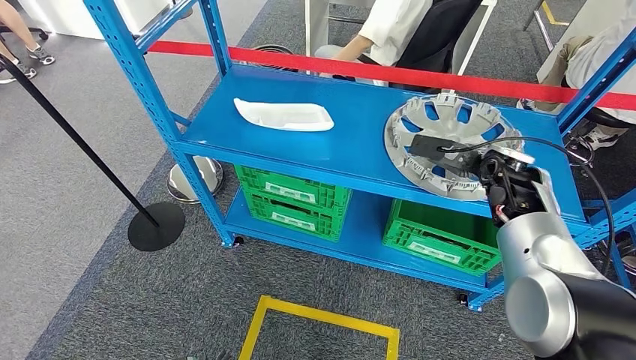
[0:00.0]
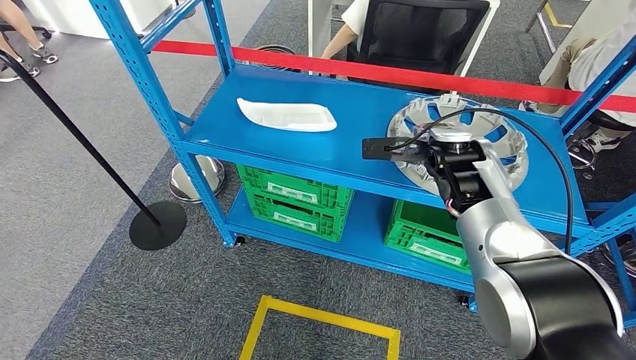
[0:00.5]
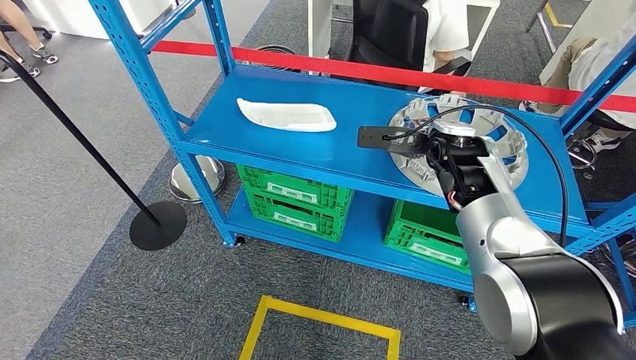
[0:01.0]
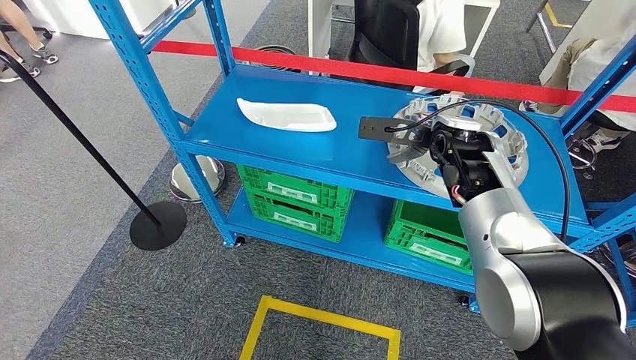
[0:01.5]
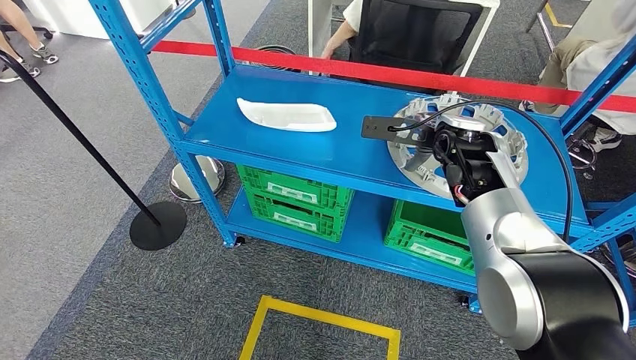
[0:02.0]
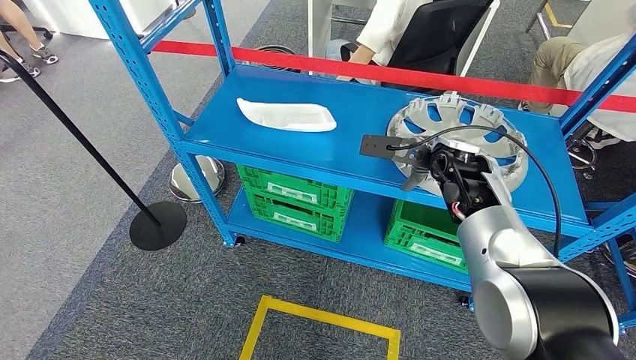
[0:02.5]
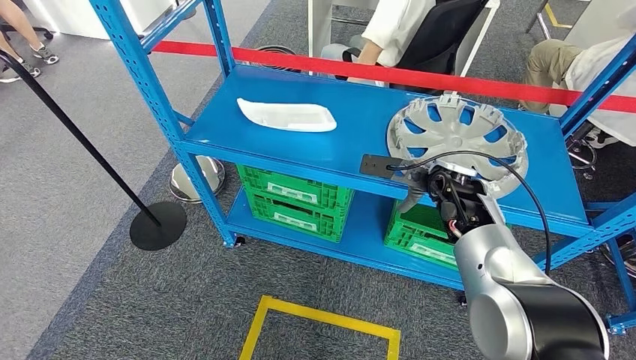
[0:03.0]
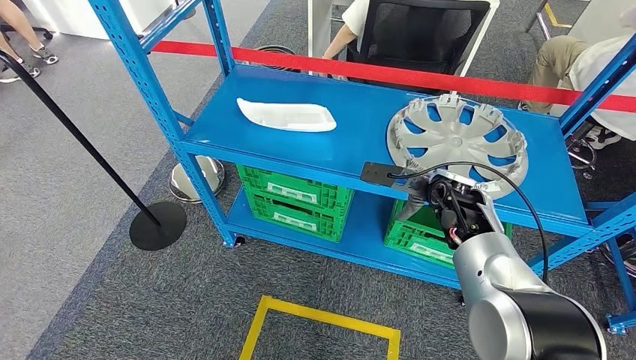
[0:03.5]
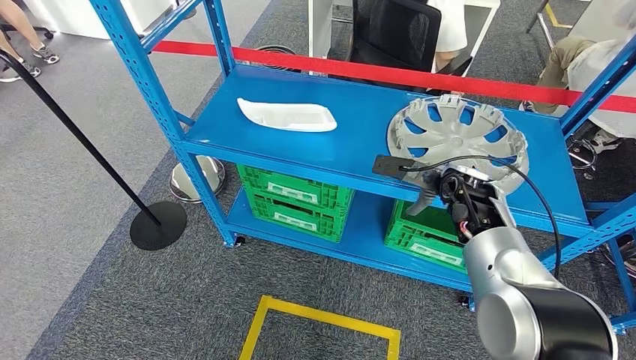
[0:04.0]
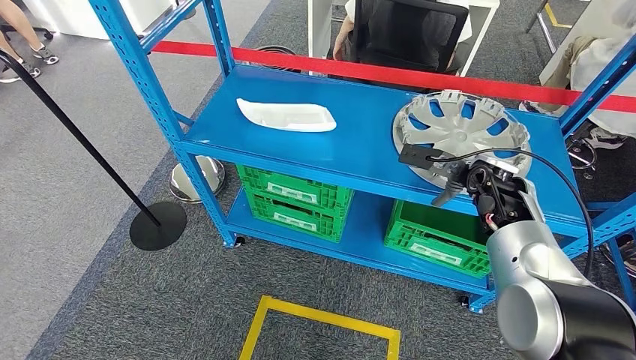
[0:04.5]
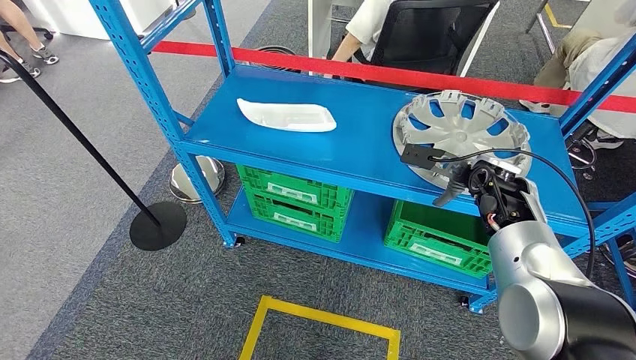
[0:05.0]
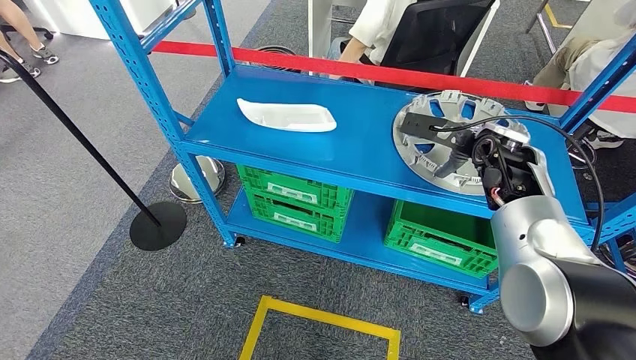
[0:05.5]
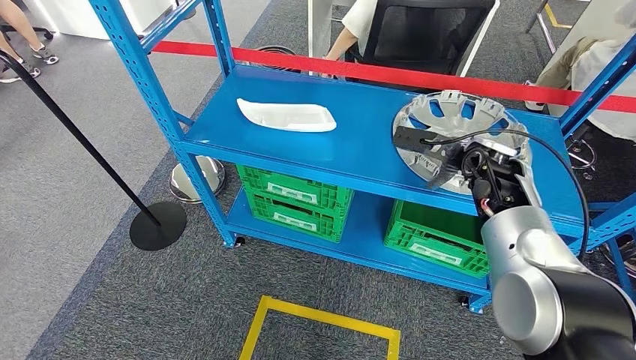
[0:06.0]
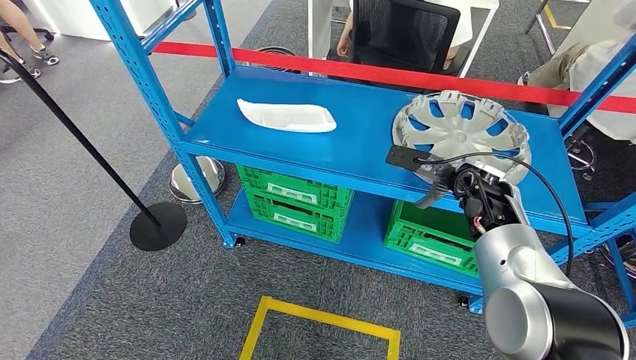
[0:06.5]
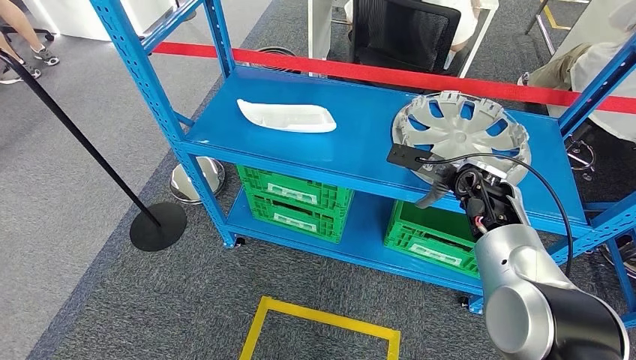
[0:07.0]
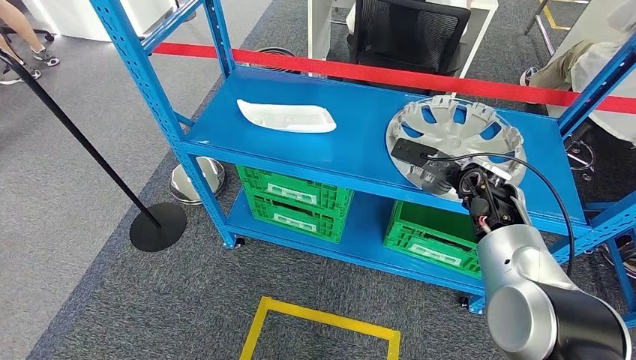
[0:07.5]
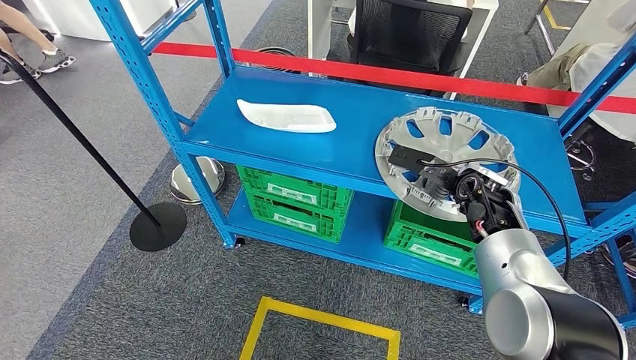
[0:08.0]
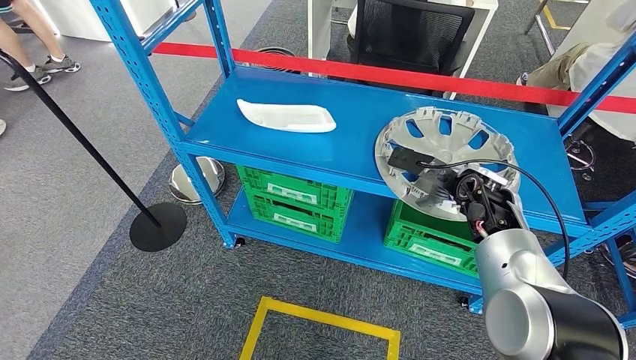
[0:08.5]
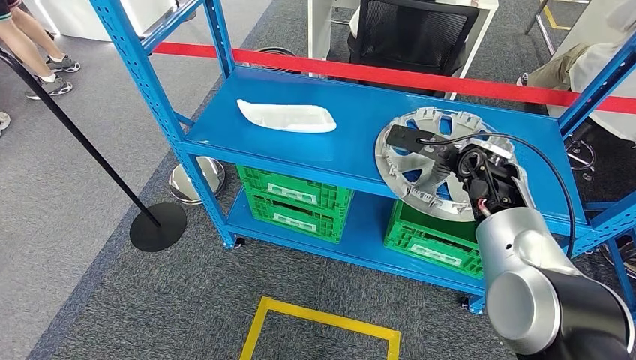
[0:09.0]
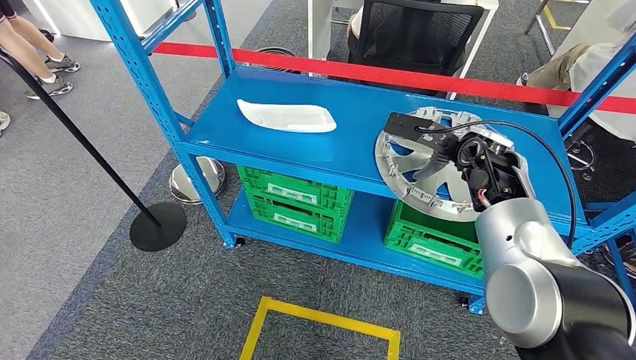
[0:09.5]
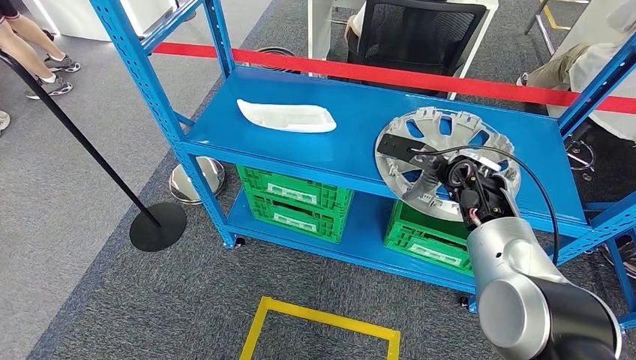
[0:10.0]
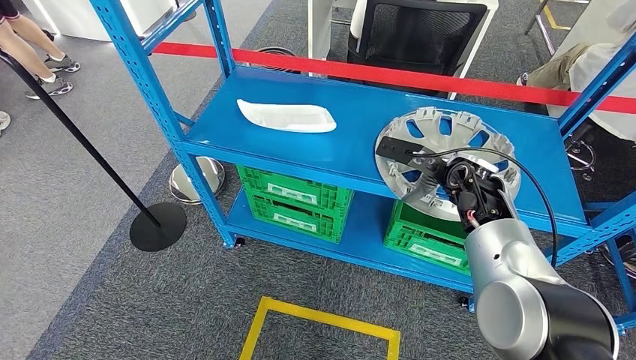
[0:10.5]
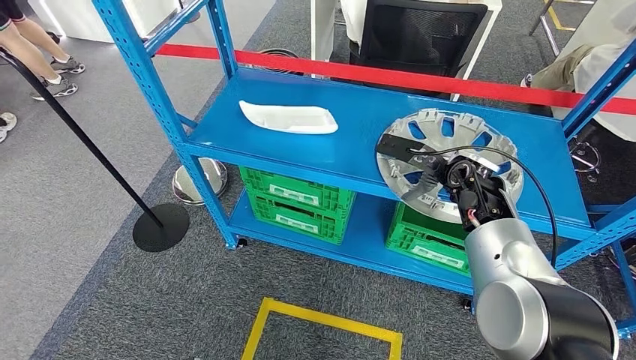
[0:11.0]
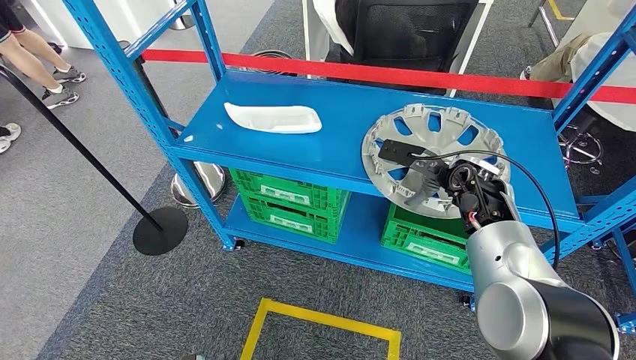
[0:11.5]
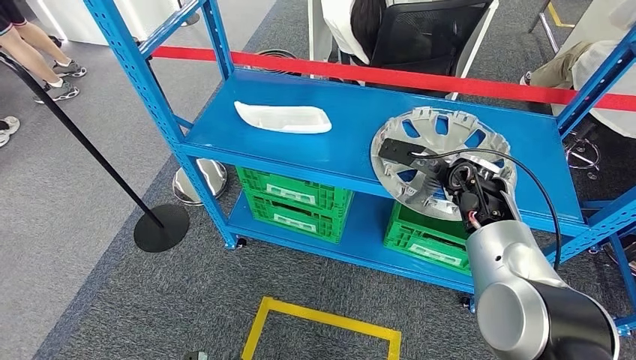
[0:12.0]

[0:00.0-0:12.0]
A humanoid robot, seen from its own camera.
0:02.0 to 0:04.0: The right hand is displaced downward by some 10 cm.
0:04.0 to 0:06.0: The right hand moves approximately 5 cm.
0:06.0 to 0:08.0: The right hand travels downward by some 5 cm.
0:10.0 to 0:12.0: There are only small adjustments of the hands.

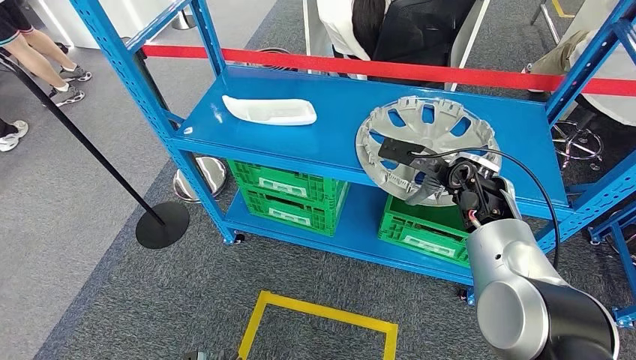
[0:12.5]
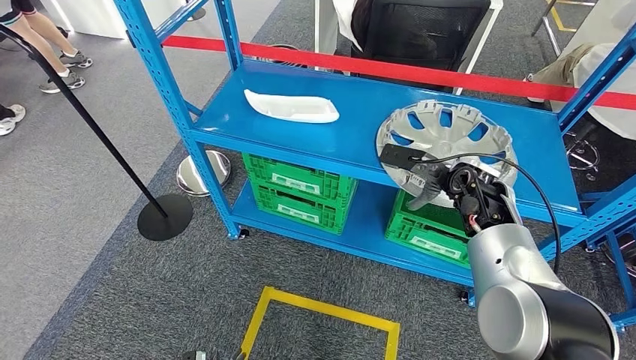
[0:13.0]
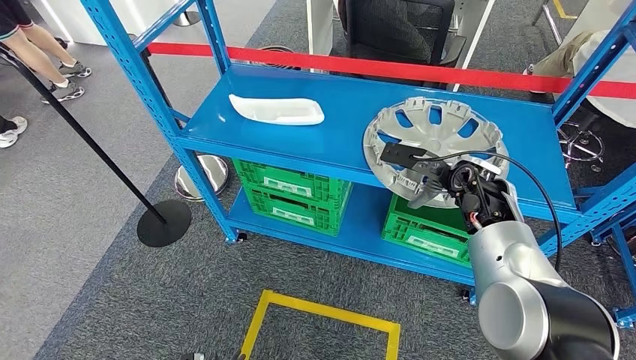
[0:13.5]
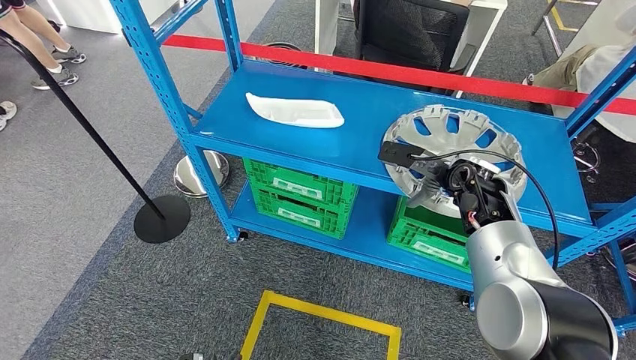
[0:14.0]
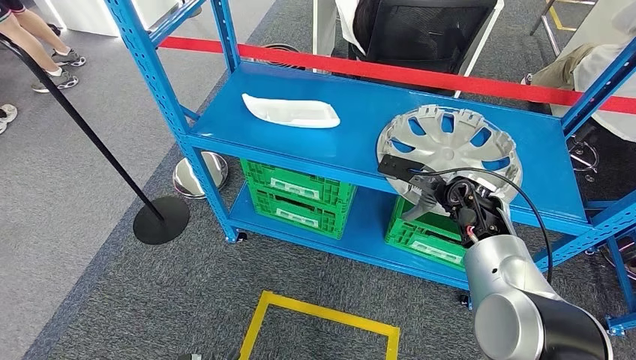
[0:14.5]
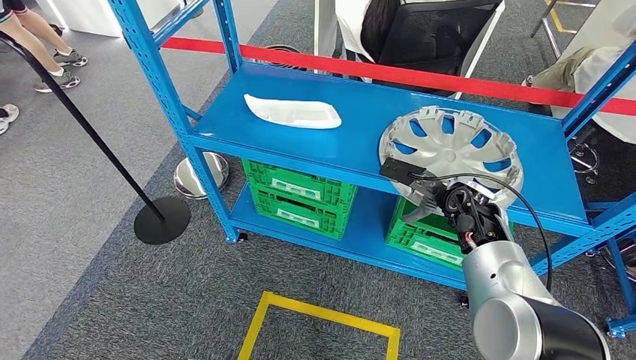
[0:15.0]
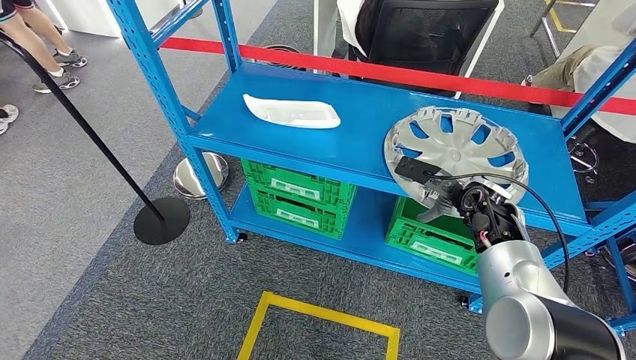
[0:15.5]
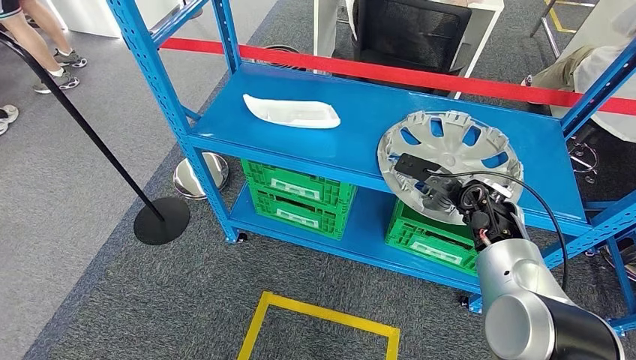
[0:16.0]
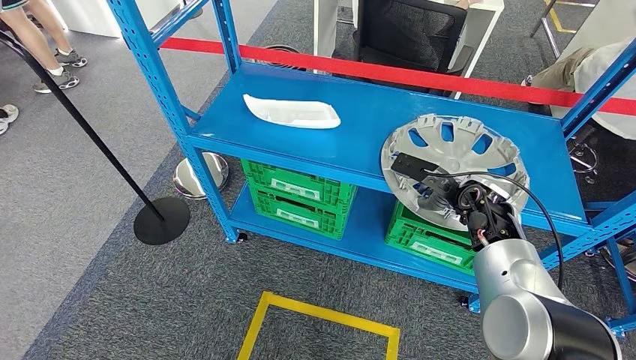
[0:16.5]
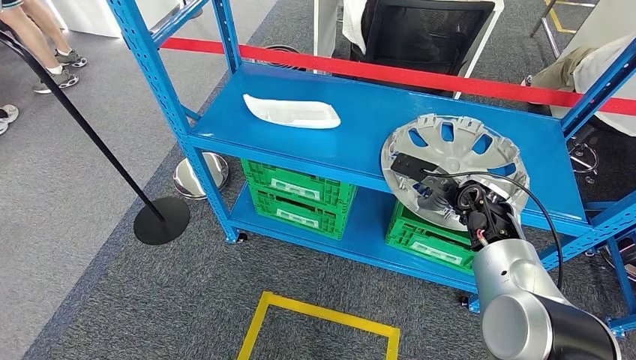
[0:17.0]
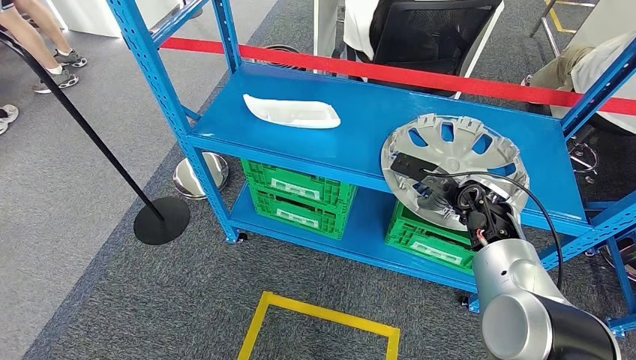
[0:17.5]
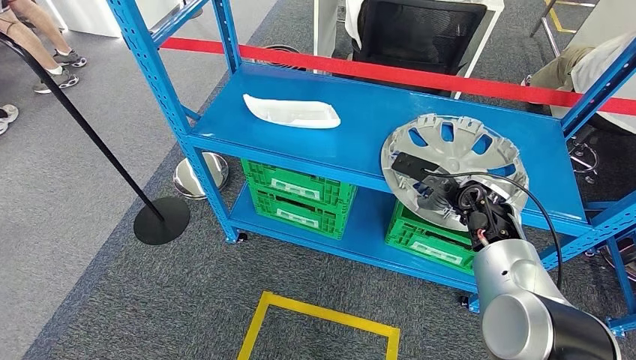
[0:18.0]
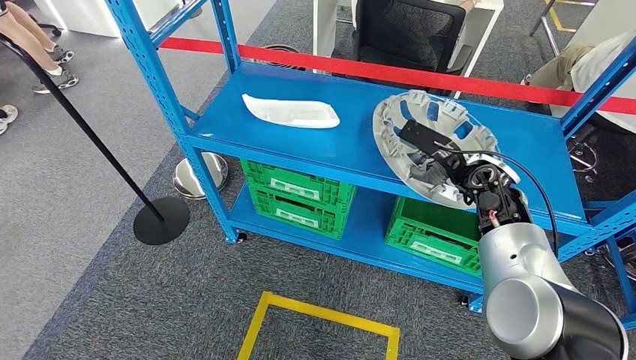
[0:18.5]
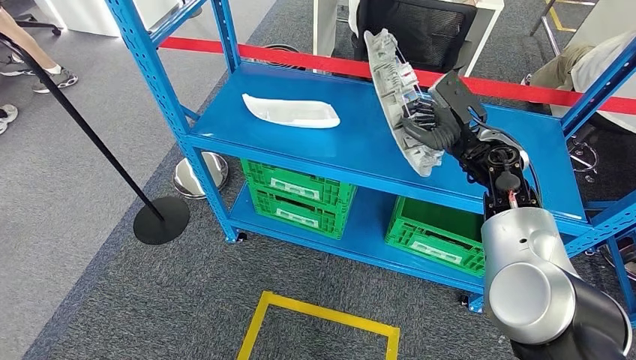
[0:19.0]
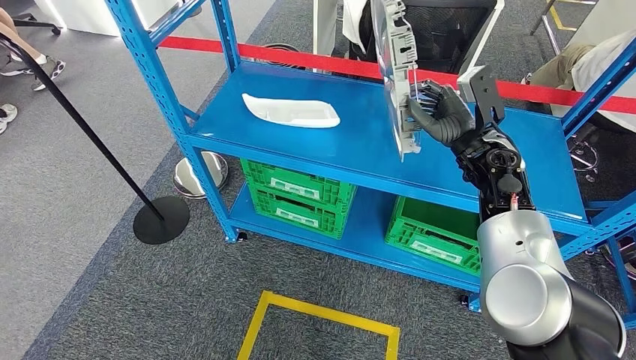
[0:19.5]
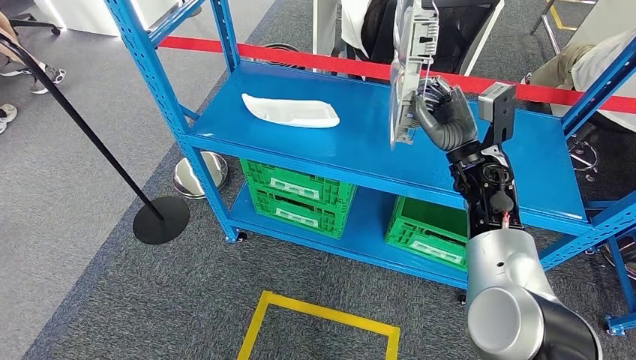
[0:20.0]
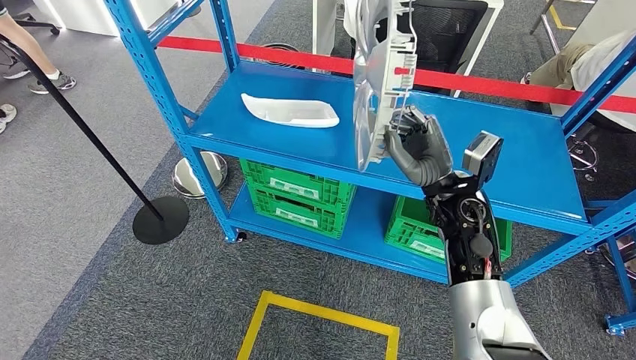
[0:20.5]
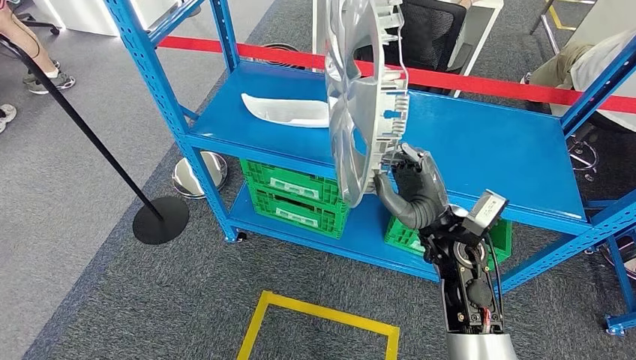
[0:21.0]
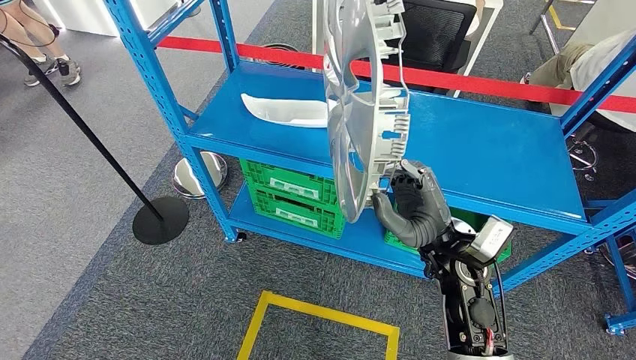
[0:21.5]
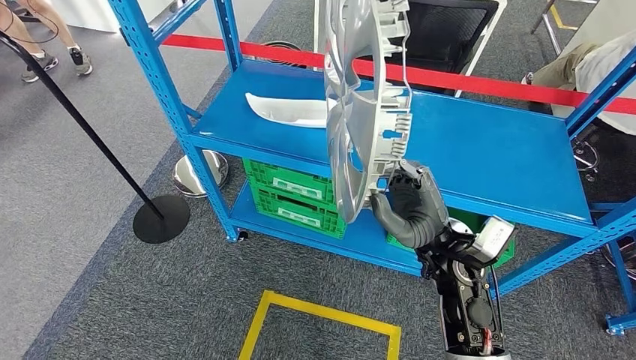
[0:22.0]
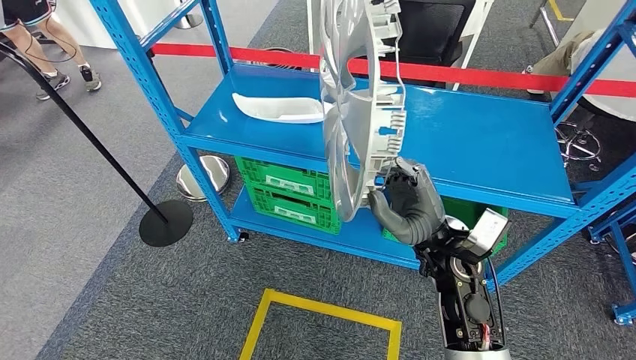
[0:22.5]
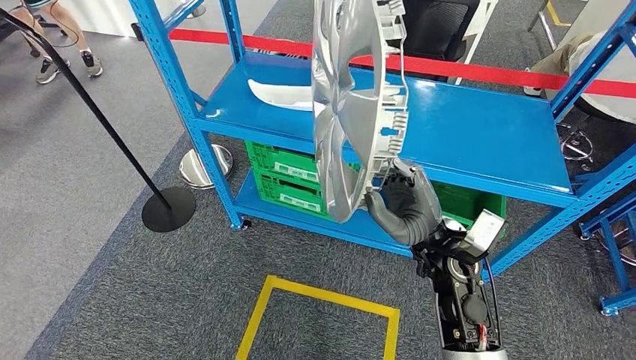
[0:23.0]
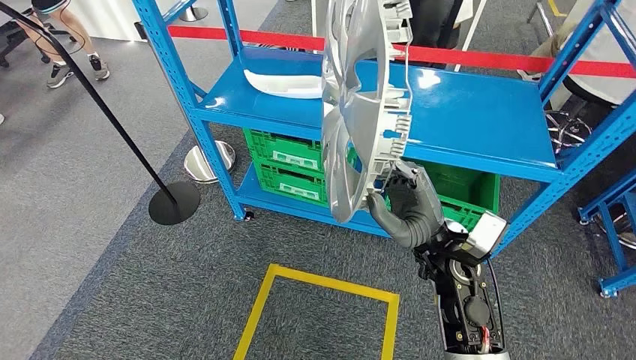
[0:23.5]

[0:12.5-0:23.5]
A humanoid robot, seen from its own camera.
Step, 0:12.5 to 0:19.5: Pick up the large parts from the shelf.
0:14.5 to 0:18.0: The hands stay close to where they were, moving slightly.
0:18.0 to 0:20.0: The right hand is displaced upward by some 5 cm.
